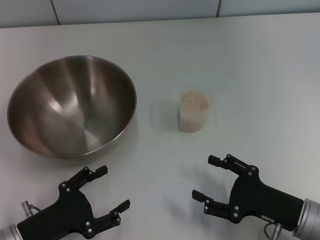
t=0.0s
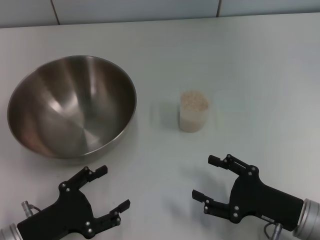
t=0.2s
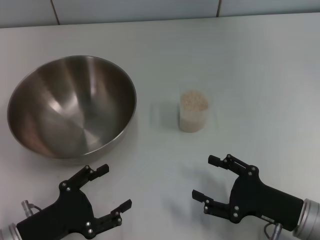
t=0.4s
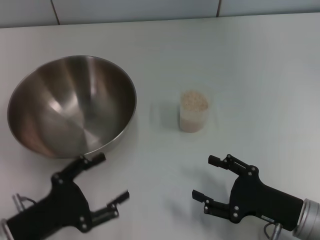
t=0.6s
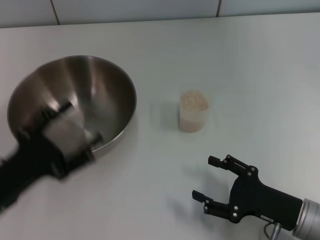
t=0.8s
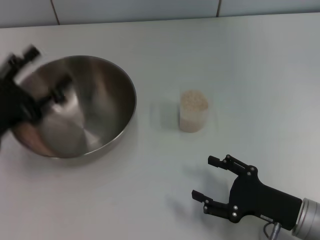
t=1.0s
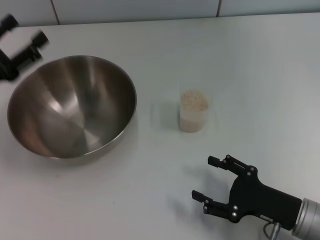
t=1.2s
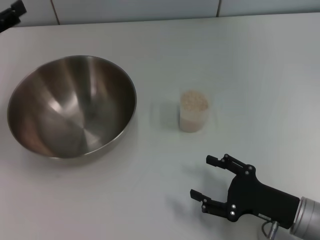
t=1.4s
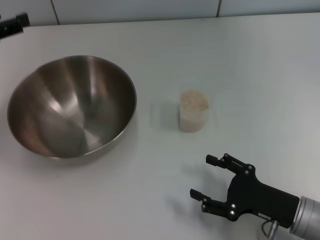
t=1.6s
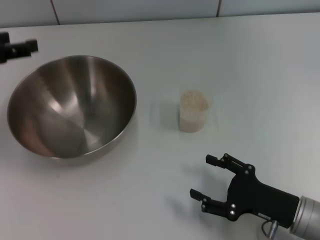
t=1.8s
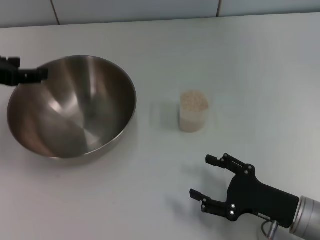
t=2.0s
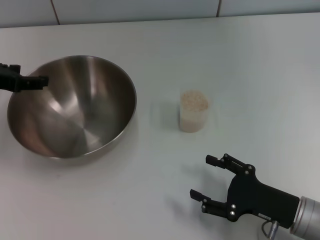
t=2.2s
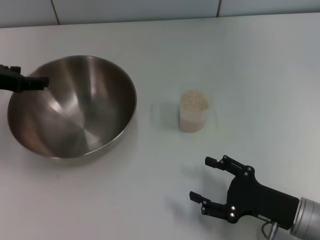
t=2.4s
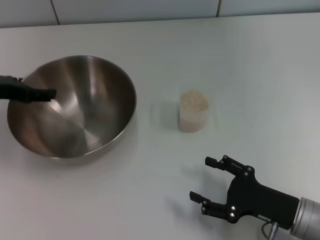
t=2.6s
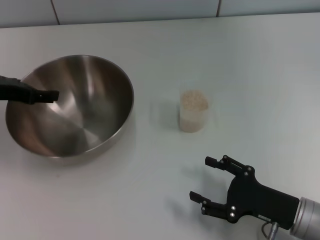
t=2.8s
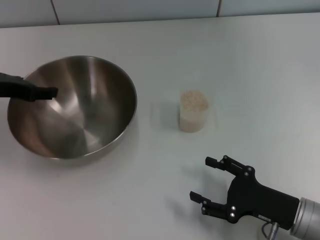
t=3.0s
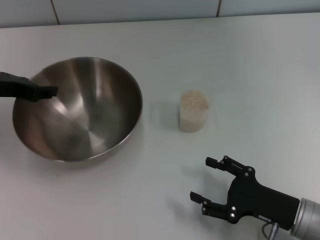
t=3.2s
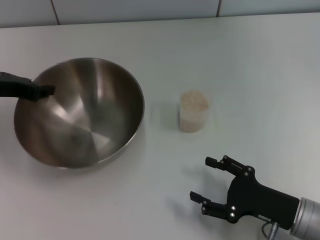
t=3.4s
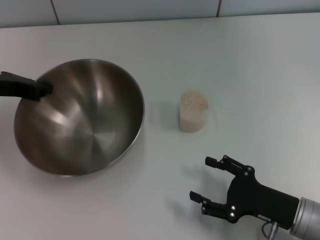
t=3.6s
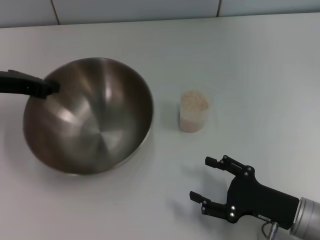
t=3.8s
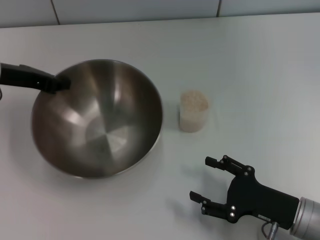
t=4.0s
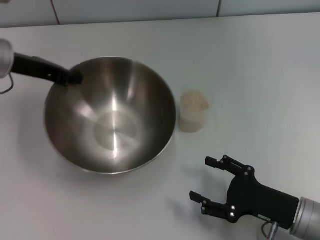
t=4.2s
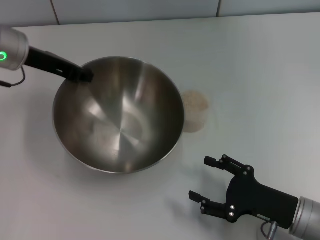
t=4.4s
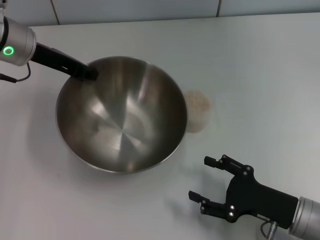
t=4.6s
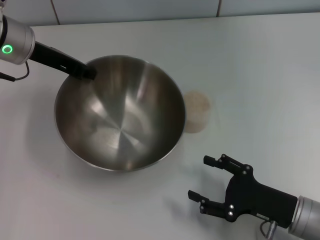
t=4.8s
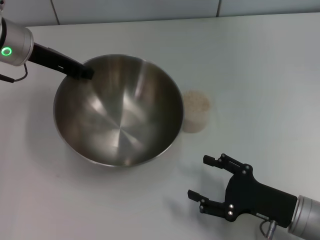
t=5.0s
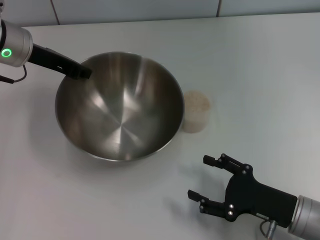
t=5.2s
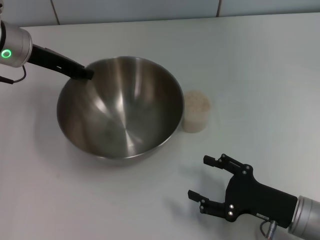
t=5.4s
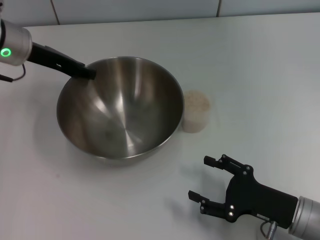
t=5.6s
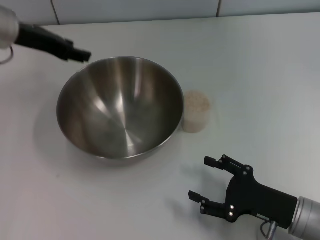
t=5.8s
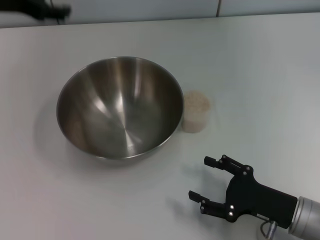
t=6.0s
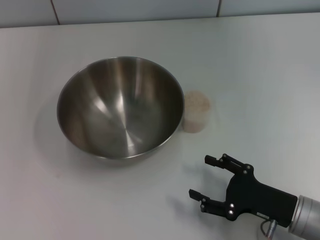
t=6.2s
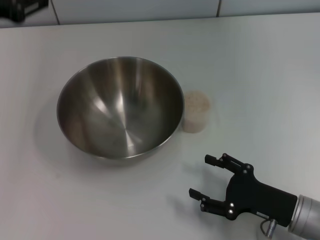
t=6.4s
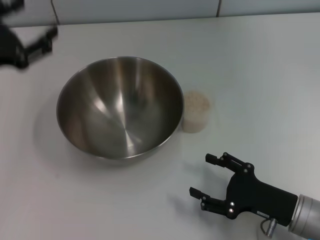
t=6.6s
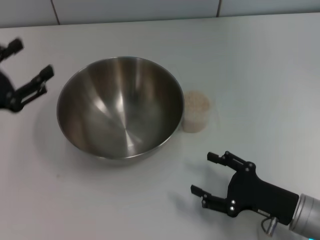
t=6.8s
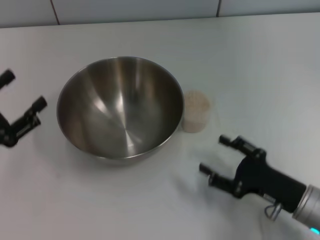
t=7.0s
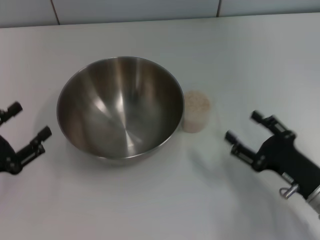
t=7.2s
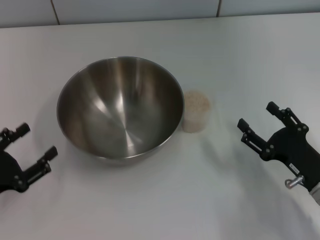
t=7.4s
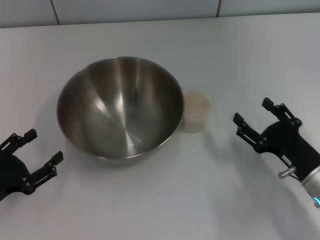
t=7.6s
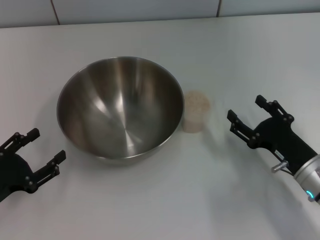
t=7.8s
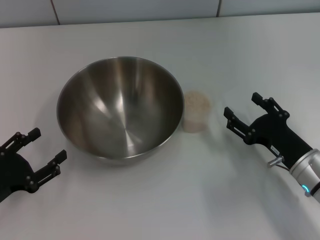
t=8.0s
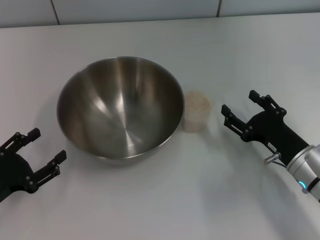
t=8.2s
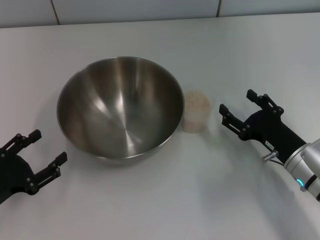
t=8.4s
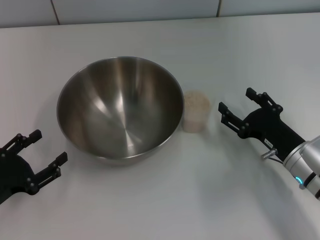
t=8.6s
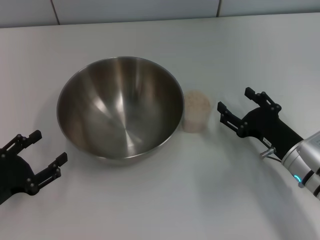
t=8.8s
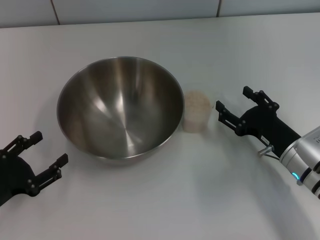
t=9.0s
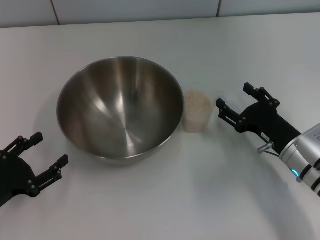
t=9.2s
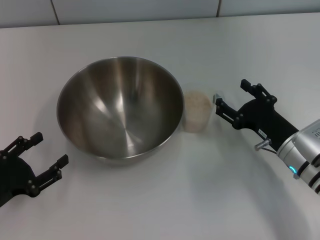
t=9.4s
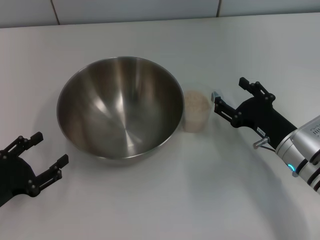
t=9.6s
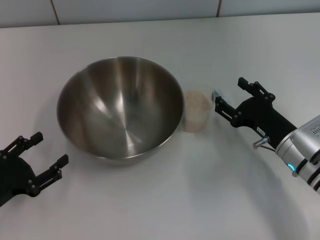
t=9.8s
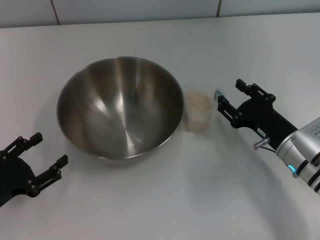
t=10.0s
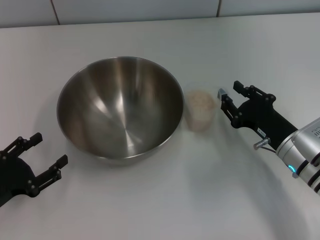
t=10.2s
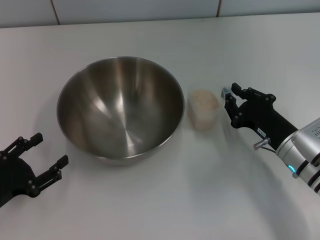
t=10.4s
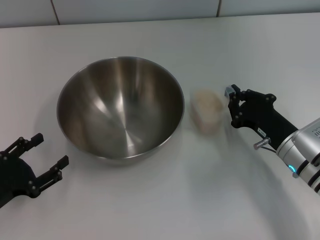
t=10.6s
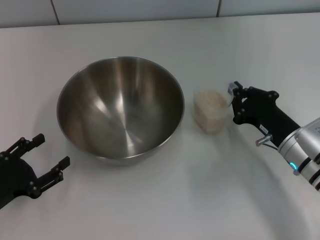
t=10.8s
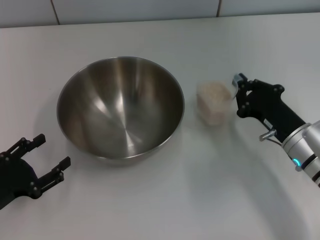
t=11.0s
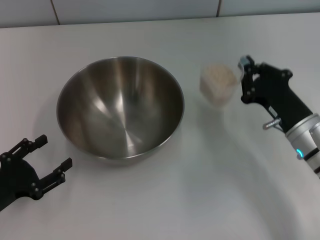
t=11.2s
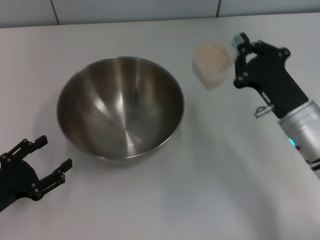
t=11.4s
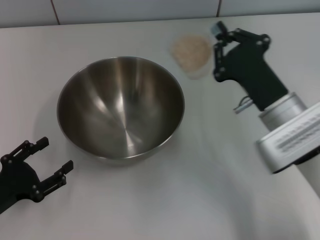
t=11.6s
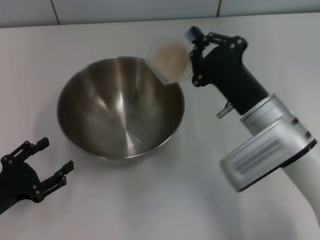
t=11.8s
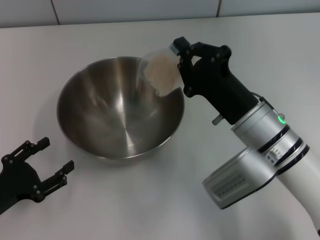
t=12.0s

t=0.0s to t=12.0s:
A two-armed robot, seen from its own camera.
Task of the whole recording: Place the bowl in the middle of the table with one hand and pour the rice from the grain cup into it with the other hand.
Step, t=0.0s to t=4.0s: Pick up the bowl with the left gripper.
Step, t=4.2s to t=5.8s: Place the bowl in the center of view with the left gripper.
Step, t=6.2s to t=11.2s: Pick up the cup with rice in it with the right gripper.
t=0.0s to t=1.6s: The left gripper goes about 25 cm forward, upward and to the left.
t=1.6s to t=3.0s: The left gripper shifts by about 5 cm.
t=3.0s to t=4.4s: The left gripper shifts about 5 cm to the right, and closes.
t=4.4s to t=6.0s: The left gripper goes roughly 5 cm upward, and opens its fingers.
t=6.0s to t=7.6s: The left gripper goes approximately 30 cm downward and backward.
t=7.6s to t=9.0s: There are only small adjustments of the grippers.
t=9.0s to t=10.4s: The right gripper closes.
t=10.4s to t=12.0s: The right gripper shifts some 10 cm to the left and upward, and closes its fingers.

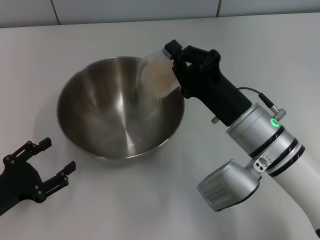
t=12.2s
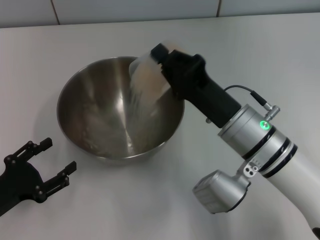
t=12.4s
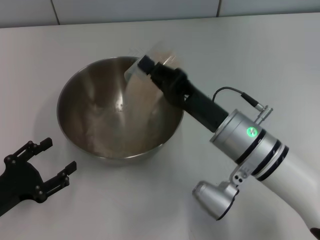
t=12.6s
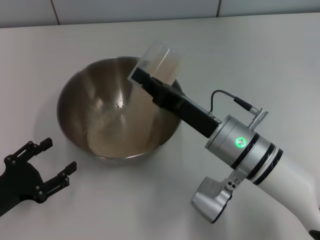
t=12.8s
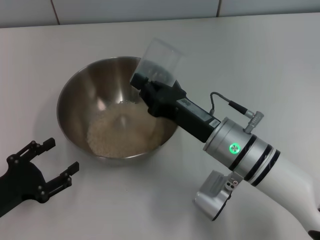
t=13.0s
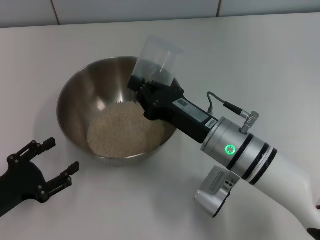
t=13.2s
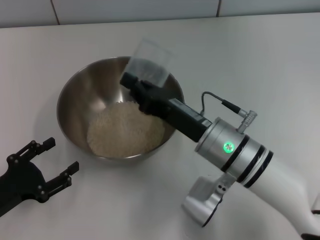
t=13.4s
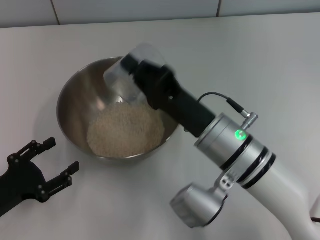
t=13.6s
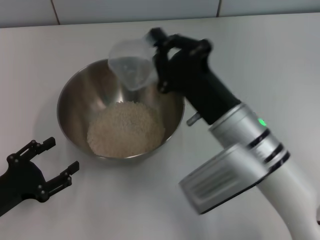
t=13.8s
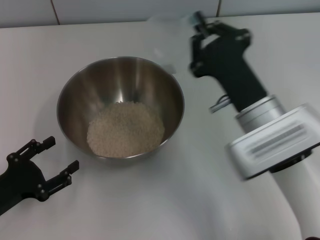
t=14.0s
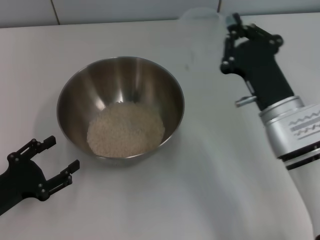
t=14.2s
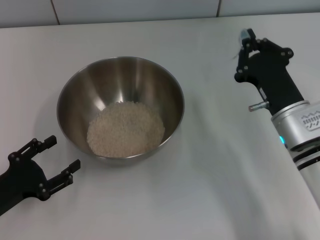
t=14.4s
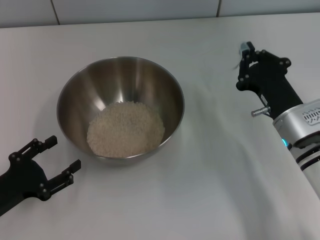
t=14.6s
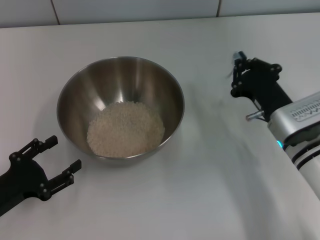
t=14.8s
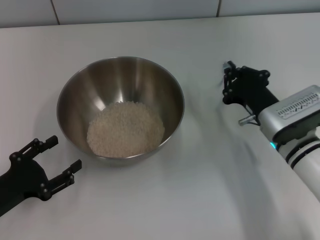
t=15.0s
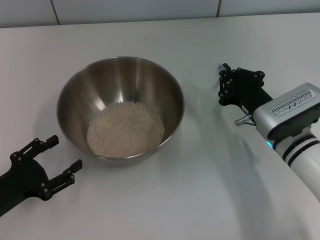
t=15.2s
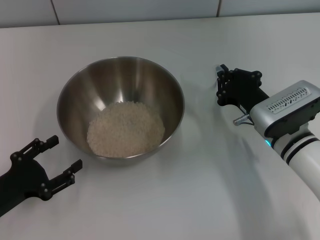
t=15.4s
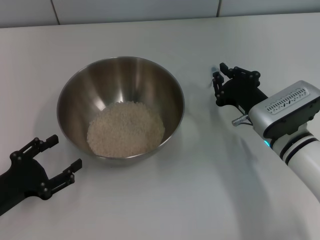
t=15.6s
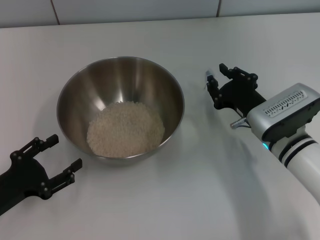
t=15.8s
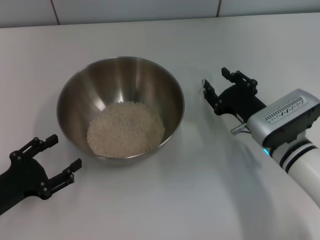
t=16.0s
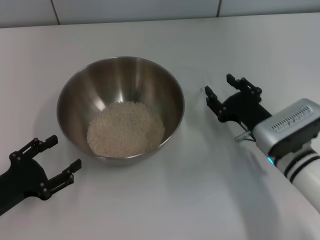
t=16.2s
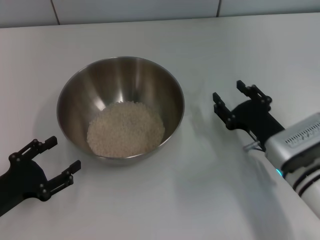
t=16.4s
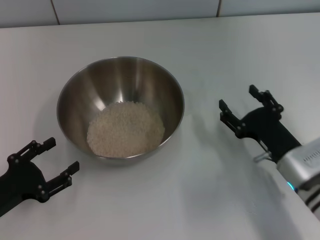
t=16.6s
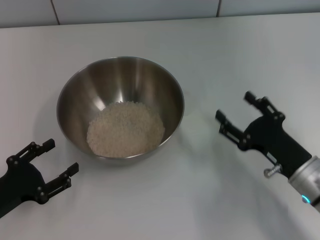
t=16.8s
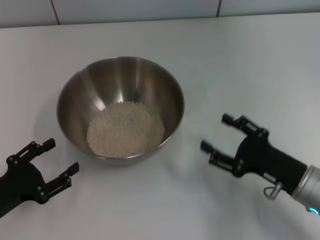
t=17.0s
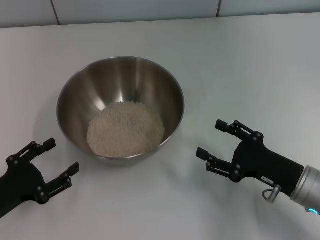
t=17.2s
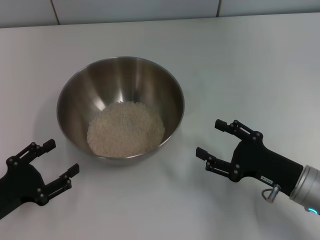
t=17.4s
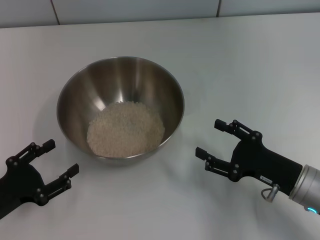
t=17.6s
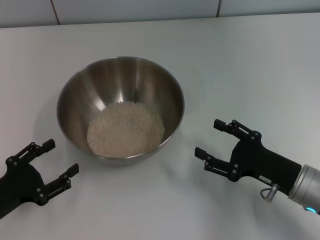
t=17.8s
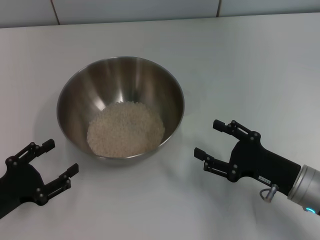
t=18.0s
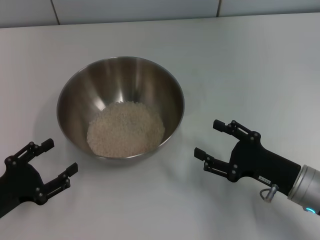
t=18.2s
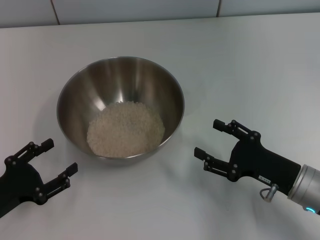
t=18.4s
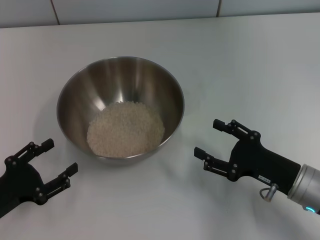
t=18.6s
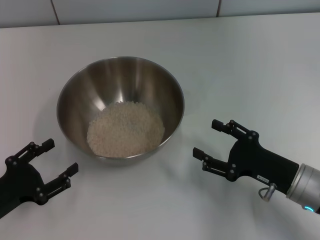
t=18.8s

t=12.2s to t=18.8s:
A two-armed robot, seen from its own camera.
Task of the whole recording: Place the bowl in the middle of the table with one hand and pour the rice from the grain cup into it with the other hand.
Step, t=12.2s to t=14.2s: Pour the rice from the cup into the bowl with the right gripper.
Step, t=14.4s to t=16.4s: Place the cup on the table with the right gripper.
t=13.8s to t=15.4s: The right gripper travels to the right and downward by roughly 10 cm.
t=15.4s to t=17.2s: The right gripper travels backward by about 10 cm, and opens up.
t=17.2s to t=18.8s: Both grippers stay about where they are.
